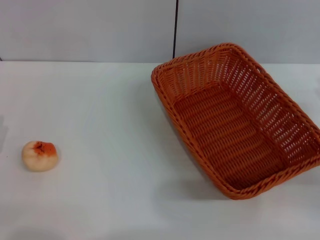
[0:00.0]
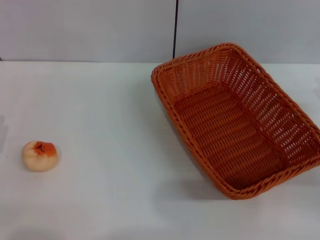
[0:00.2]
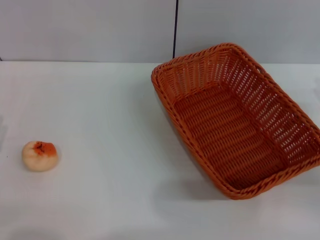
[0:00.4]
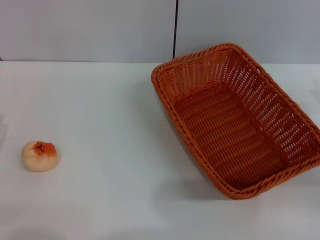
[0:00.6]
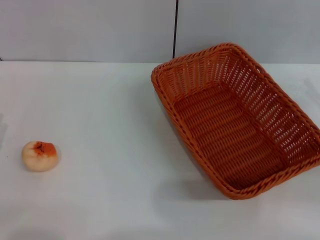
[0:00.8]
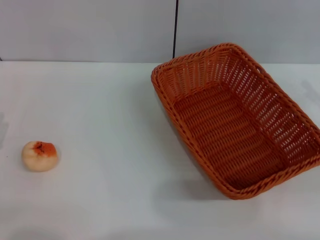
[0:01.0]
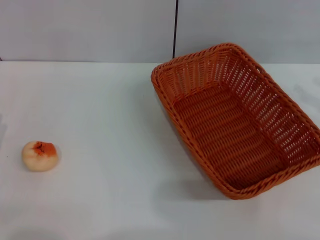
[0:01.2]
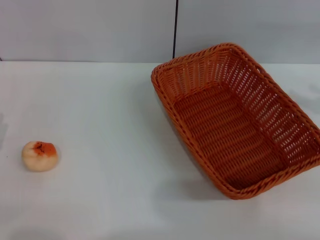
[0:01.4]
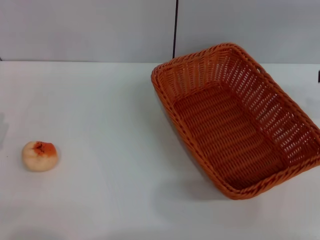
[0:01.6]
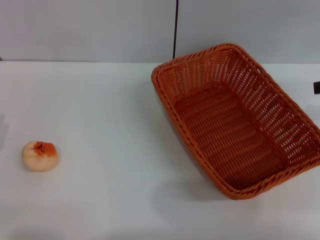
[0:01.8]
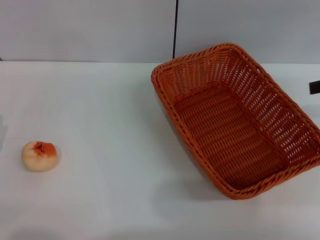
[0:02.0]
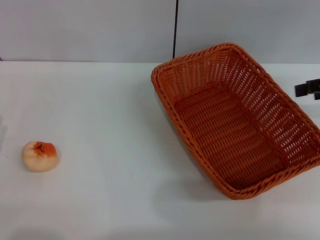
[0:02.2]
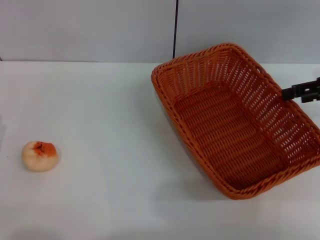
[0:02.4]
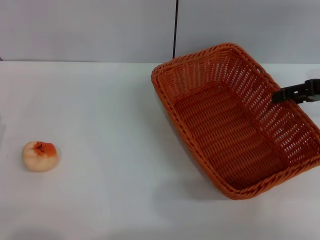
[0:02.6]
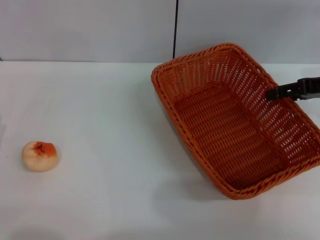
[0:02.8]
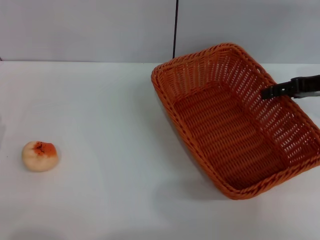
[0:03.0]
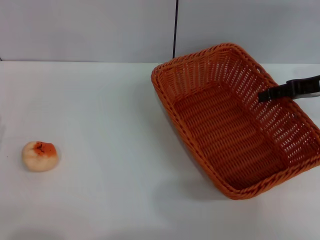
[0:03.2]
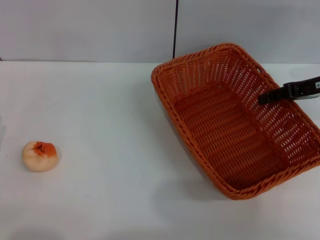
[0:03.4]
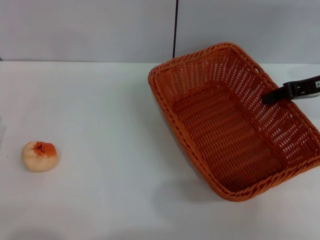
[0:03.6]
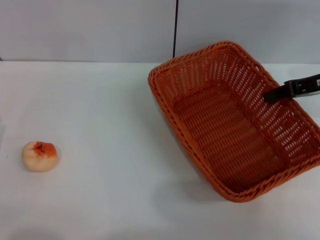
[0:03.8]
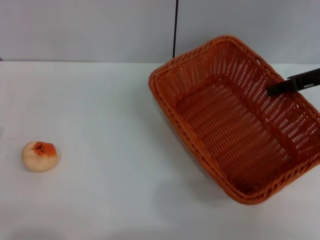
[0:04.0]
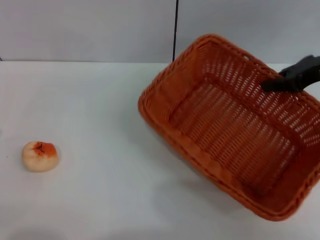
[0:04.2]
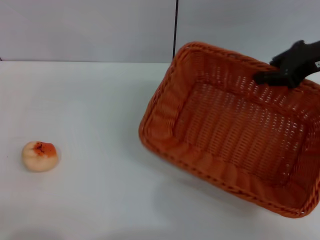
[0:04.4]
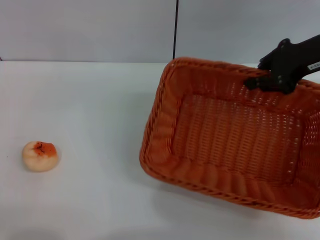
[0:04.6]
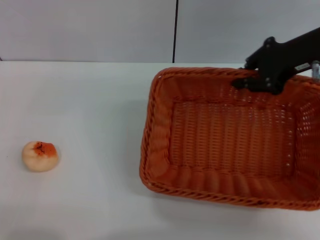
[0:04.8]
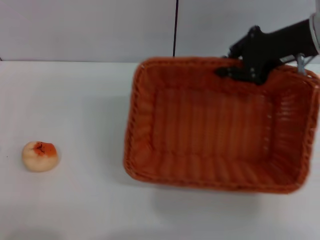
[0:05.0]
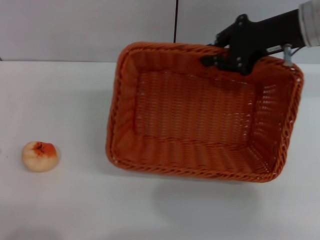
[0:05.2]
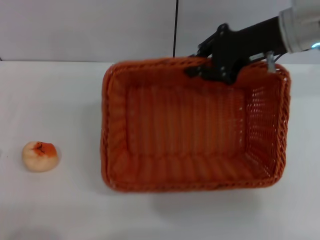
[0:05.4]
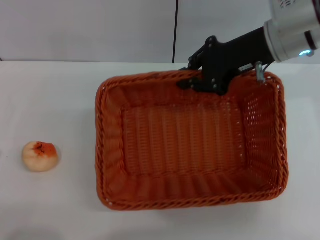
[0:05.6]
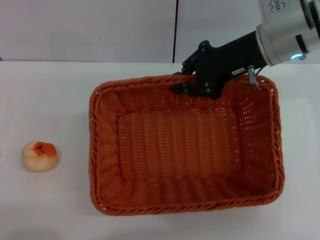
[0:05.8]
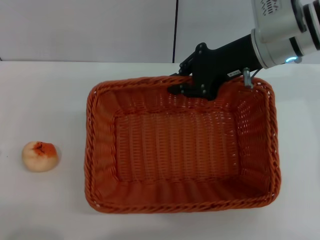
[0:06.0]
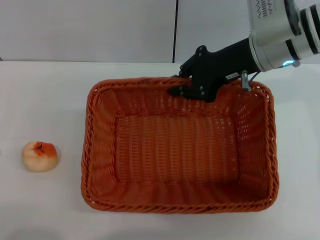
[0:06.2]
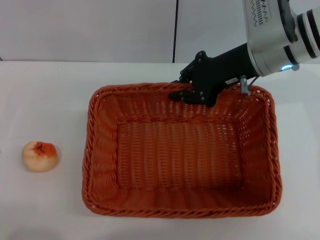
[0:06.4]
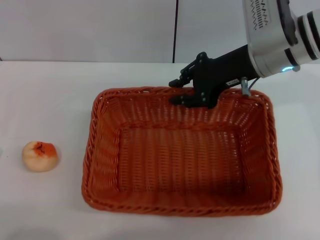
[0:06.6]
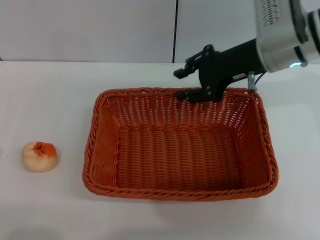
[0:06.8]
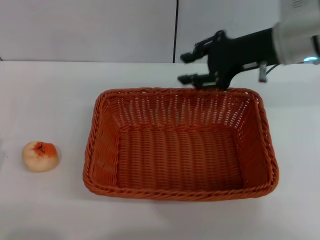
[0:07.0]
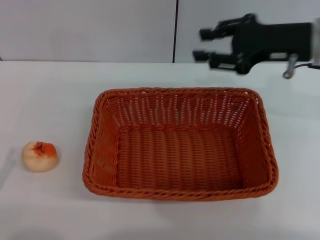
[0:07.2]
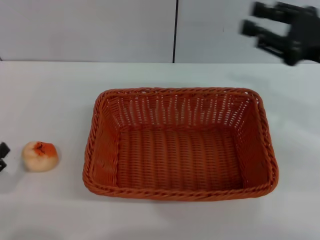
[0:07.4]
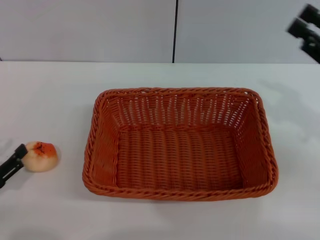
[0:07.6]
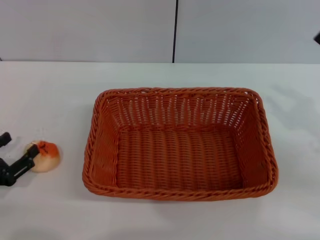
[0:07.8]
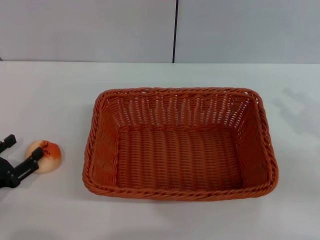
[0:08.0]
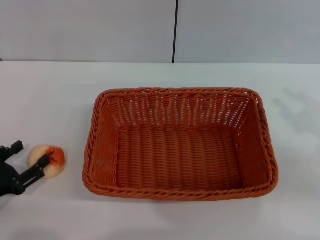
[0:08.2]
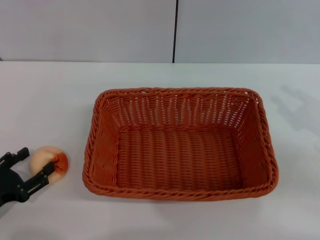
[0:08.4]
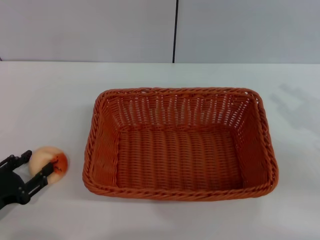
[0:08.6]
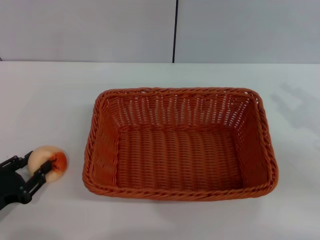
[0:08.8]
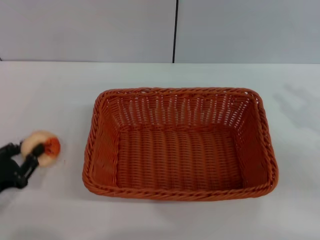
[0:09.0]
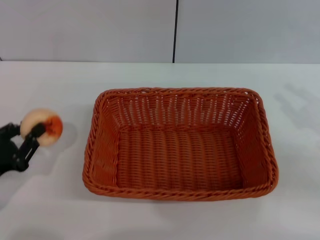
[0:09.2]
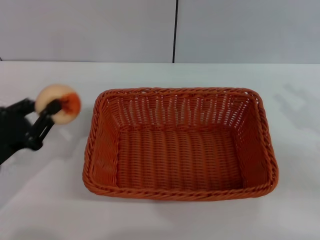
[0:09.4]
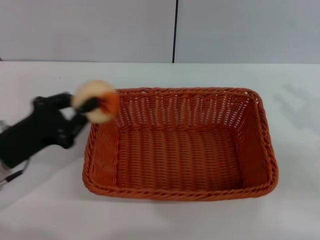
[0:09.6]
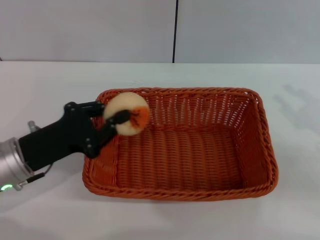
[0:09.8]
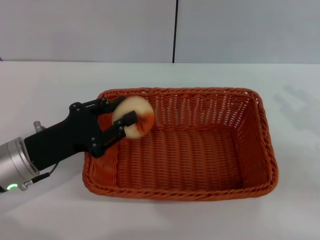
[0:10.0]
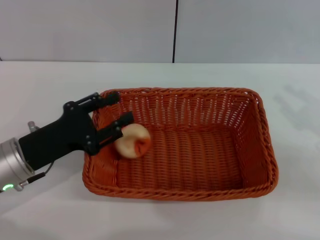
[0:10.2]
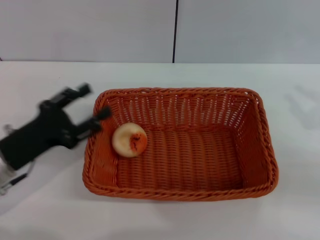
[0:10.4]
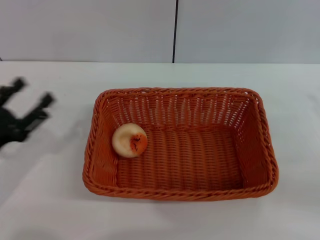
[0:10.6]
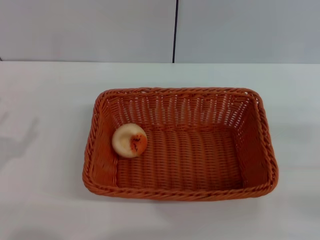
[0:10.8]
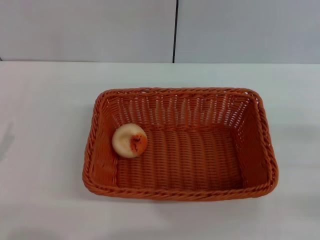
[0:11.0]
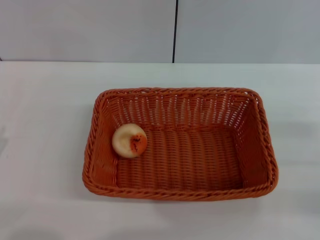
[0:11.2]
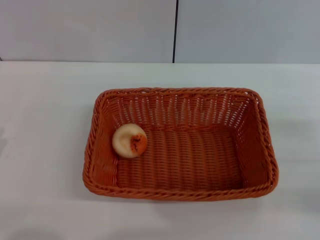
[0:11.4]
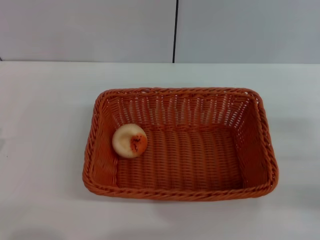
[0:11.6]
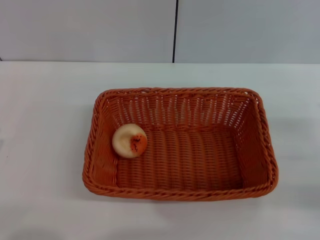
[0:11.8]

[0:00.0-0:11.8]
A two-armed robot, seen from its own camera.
Step, 0:00.0 to 0:07.0: Move the basket to the center of view with the right gripper.
Step, 0:07.2 to 0:09.2: Pick up the egg yolk pastry with the left gripper.
Step, 0:09.4 to 0:10.4: Place the egg yolk pastry into the basket with the left gripper.
0:01.4 to 0:03.0: The right gripper heads forward and to the left, covering some 10 cm.
0:03.0 to 0:04.4: The right gripper moves upward, roughly 5 cm, and closes.
0:04.4 to 0:06.0: The right gripper goes some 10 cm to the left.
0:06.0 to 0:07.4: The right gripper heads to the right and backward, covering approximately 15 cm, and opens up.
0:07.4 to 0:08.8: The right gripper moves backward and to the right, about 10 cm.
0:08.8 to 0:10.4: The left gripper goes about 10 cm forward, to the right and upward, and closes, then opens again.
0:10.4 to 0:11.8: The right gripper heads downward, covering roughly 5 cm; the left gripper shifts about 15 cm backward and to the left.

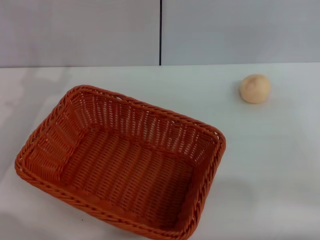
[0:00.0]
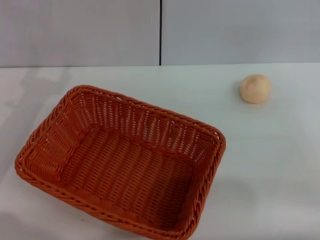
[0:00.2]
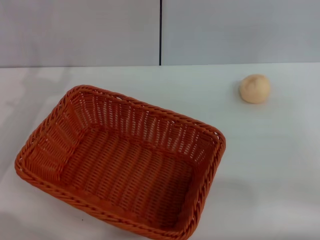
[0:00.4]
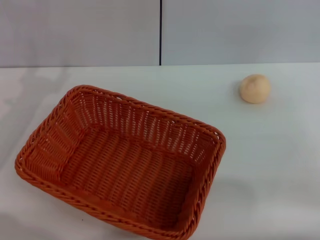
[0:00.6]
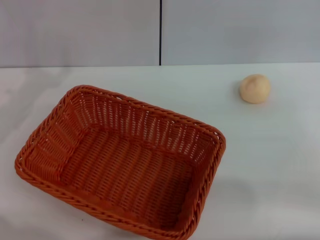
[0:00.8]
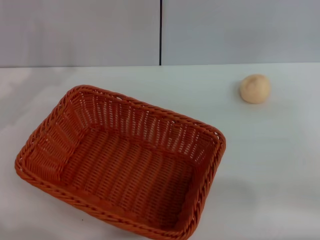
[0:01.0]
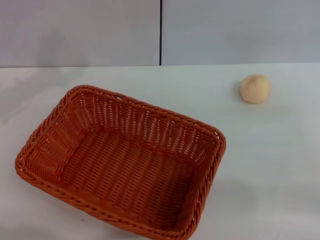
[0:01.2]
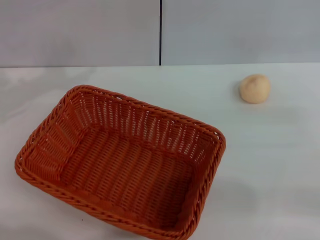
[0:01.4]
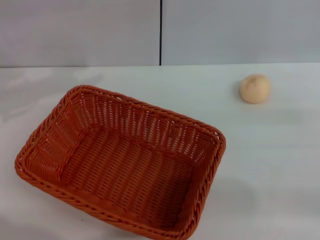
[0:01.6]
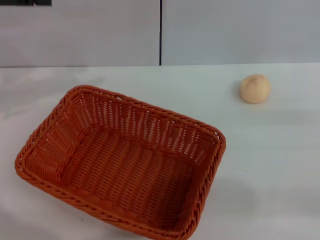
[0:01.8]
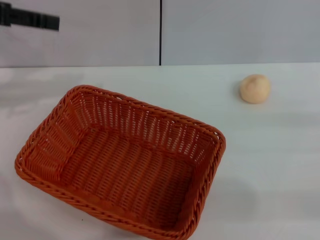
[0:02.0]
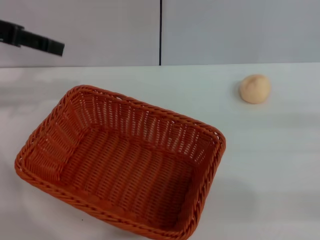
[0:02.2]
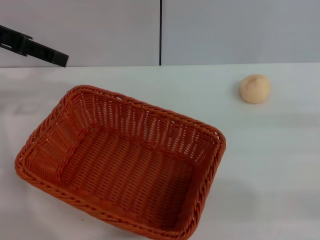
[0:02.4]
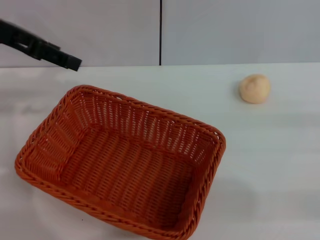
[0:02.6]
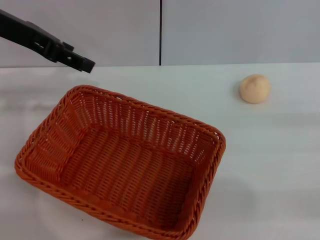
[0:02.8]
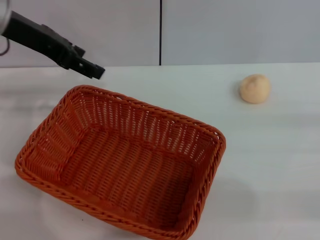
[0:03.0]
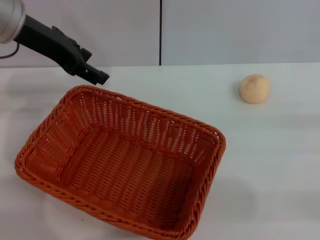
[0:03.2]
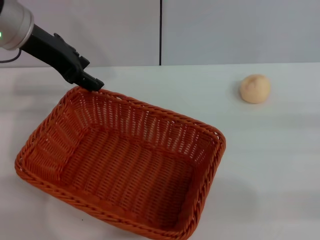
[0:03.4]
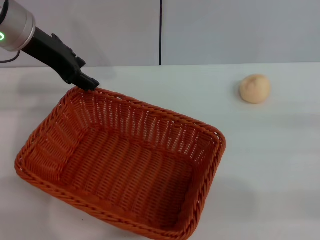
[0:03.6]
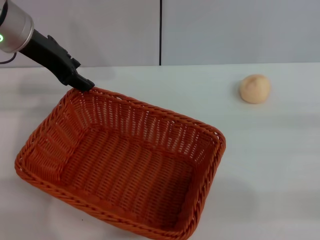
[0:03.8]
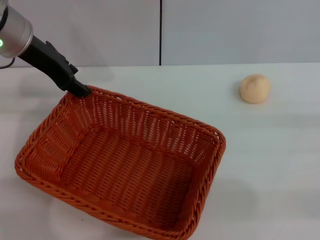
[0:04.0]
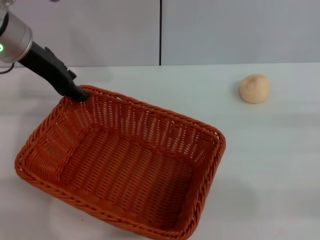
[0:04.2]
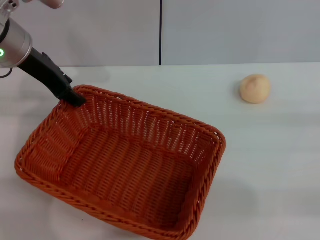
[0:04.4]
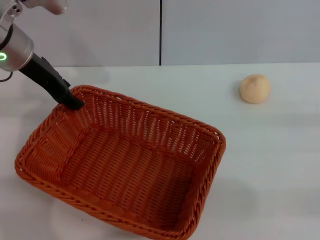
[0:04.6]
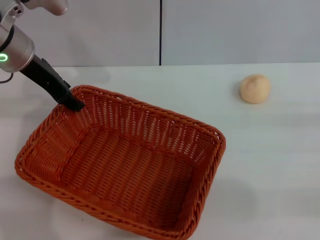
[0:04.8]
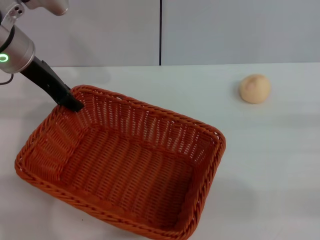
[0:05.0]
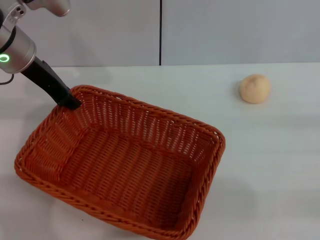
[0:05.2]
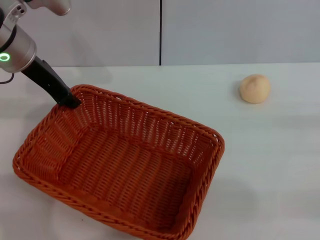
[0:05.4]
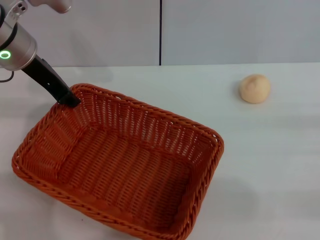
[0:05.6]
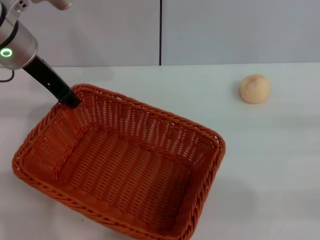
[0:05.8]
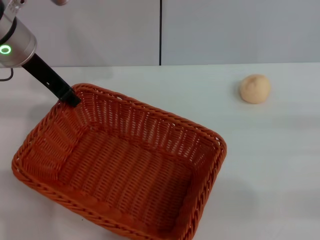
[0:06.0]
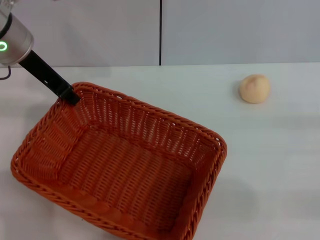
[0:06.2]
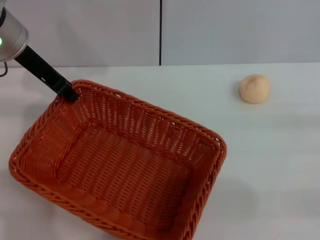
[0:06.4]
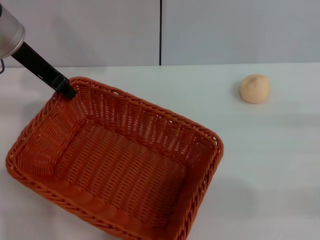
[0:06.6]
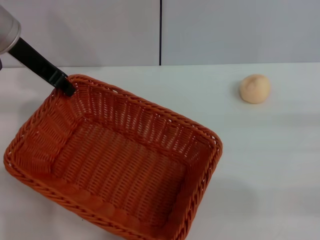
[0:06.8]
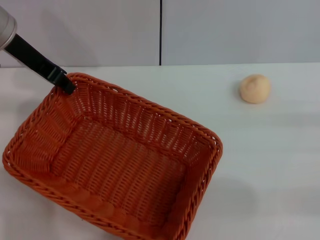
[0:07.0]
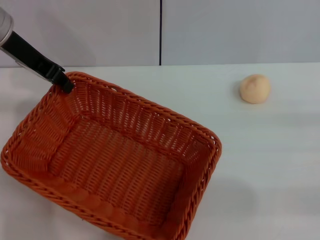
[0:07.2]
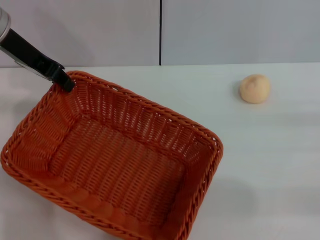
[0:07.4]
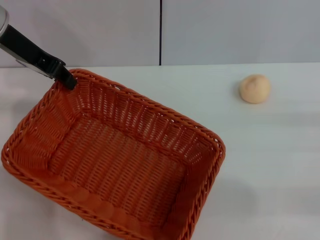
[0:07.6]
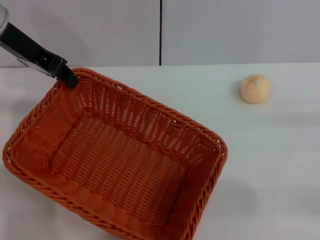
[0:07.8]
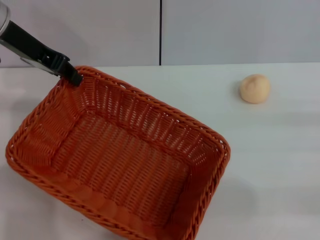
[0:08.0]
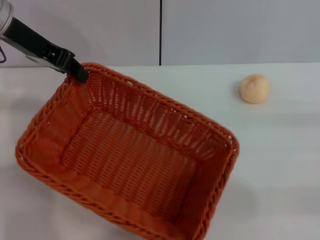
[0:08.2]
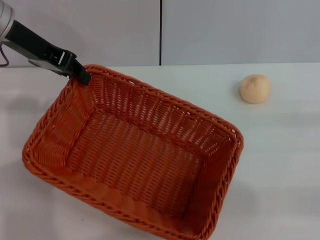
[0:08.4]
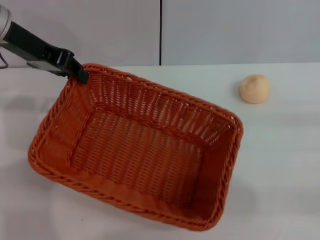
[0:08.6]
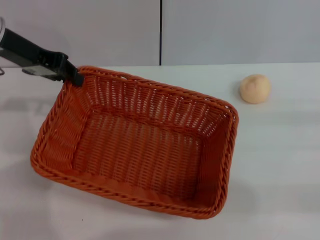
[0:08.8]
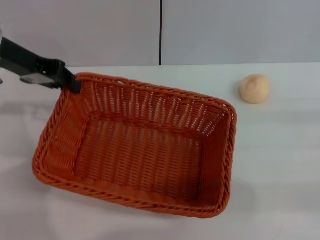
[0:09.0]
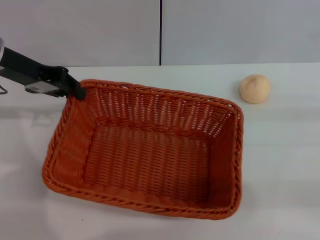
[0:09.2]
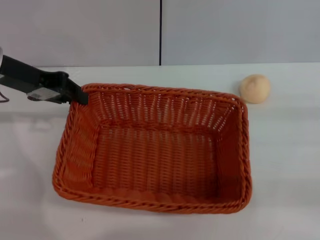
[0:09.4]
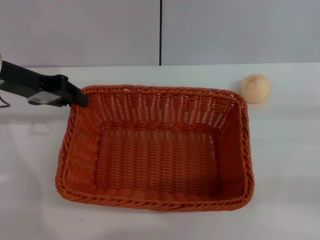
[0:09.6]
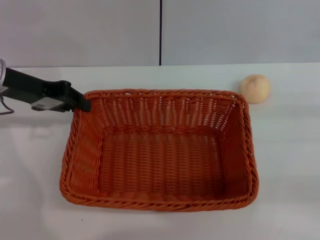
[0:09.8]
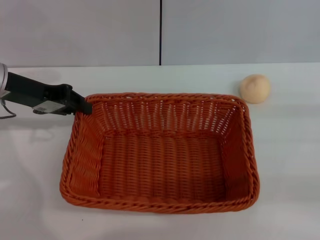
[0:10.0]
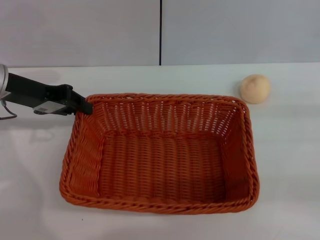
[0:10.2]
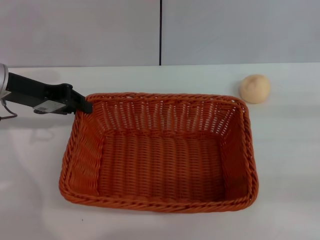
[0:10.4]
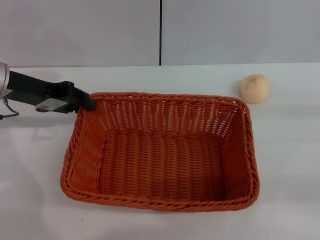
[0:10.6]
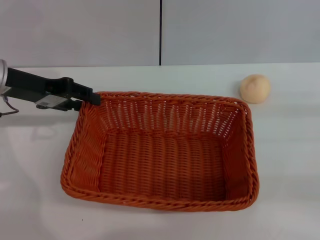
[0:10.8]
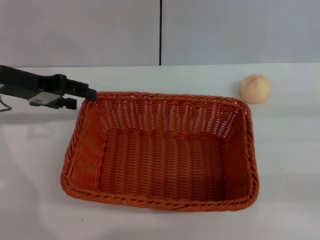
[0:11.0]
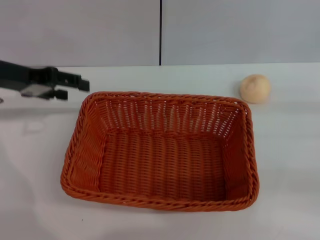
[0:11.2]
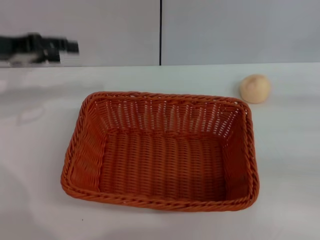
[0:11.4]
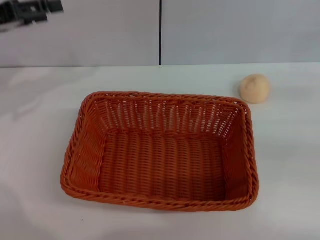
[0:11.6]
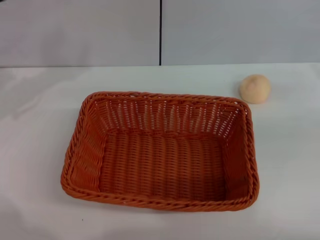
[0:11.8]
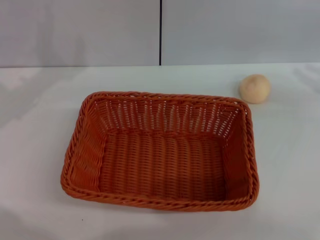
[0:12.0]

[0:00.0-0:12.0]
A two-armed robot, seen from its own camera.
Step, 0:00.0 to 0:11.4: Move the basket to the center of view with the left gripper.
0:01.6 to 0:03.0: The left gripper goes about 10 cm to the right.
0:03.0 to 0:04.4: The left gripper moves approximately 5 cm.
0:04.4 to 0:06.0: The left gripper closes up.
0:06.0 to 0:07.6: The grippers make only small movements.
0:09.0 to 0:10.4: The left gripper moves downward, some 5 cm.
0:10.4 to 0:12.0: The left gripper heads to the left, covering roughly 5 cm, and opens; the right gripper heads forward and upward, covering about 10 cm.
